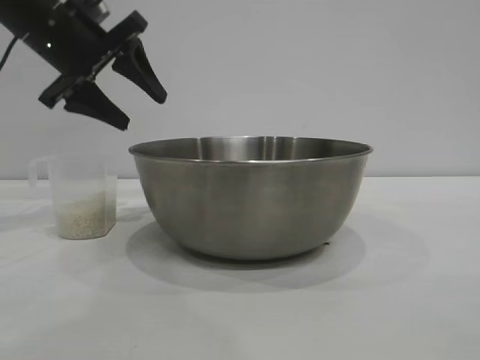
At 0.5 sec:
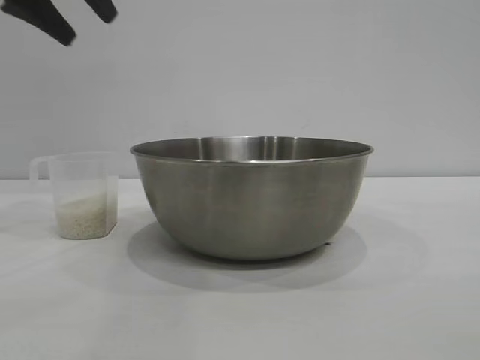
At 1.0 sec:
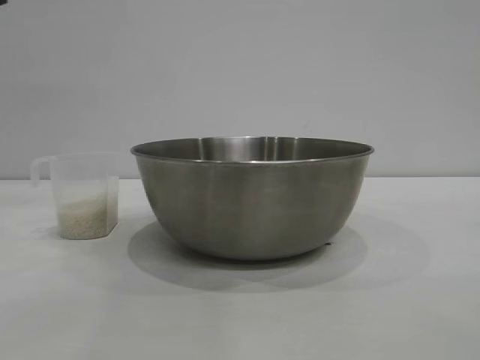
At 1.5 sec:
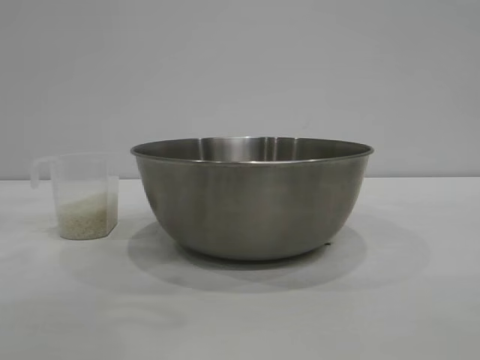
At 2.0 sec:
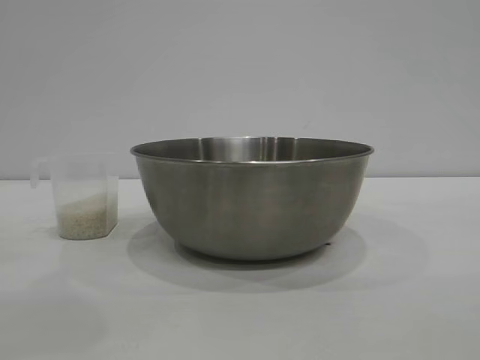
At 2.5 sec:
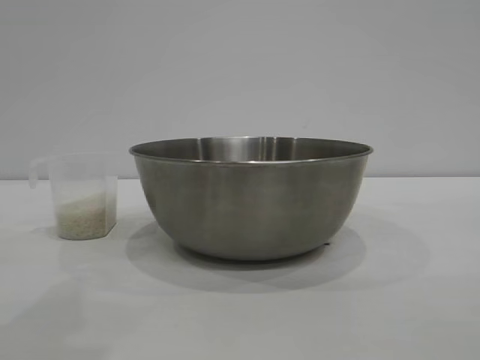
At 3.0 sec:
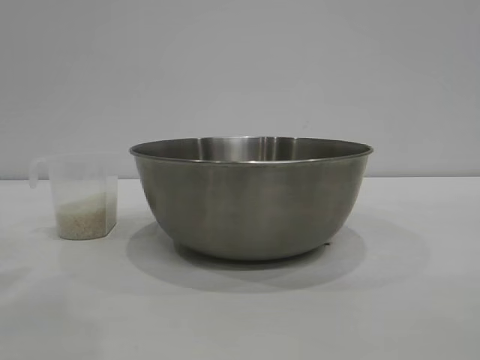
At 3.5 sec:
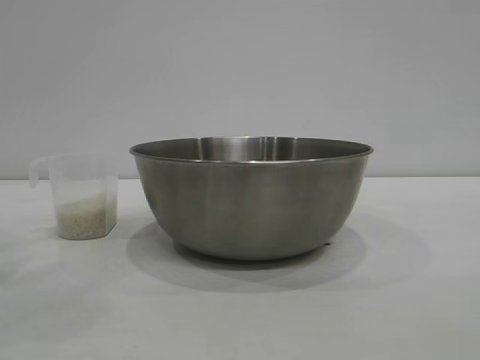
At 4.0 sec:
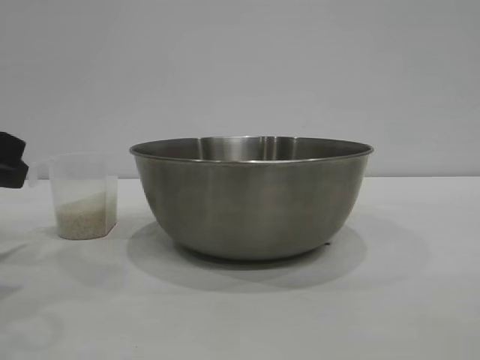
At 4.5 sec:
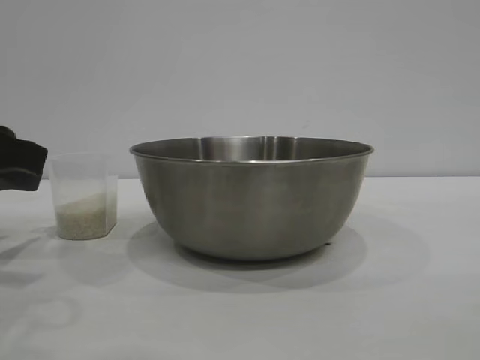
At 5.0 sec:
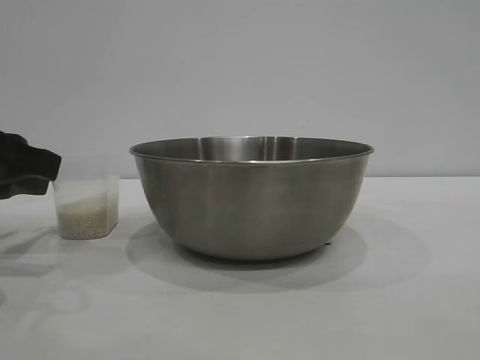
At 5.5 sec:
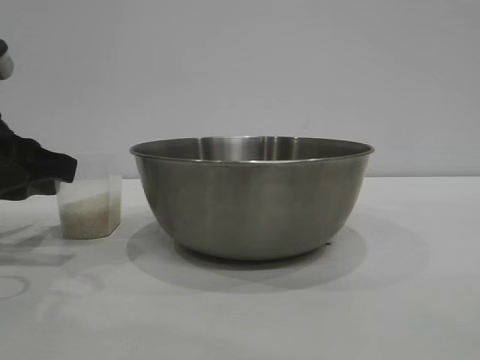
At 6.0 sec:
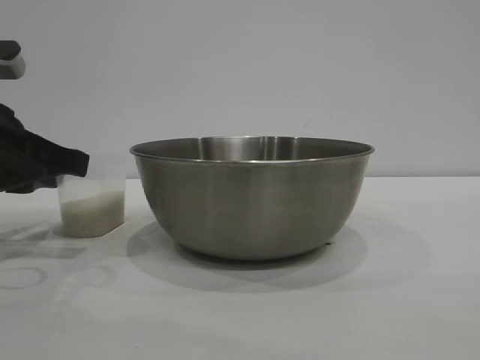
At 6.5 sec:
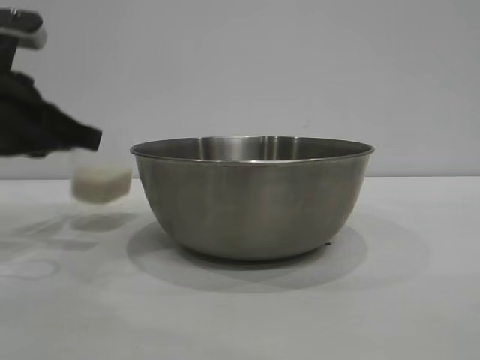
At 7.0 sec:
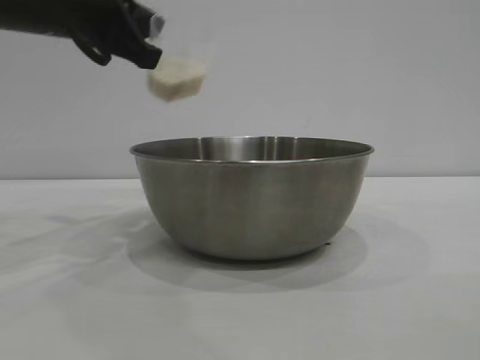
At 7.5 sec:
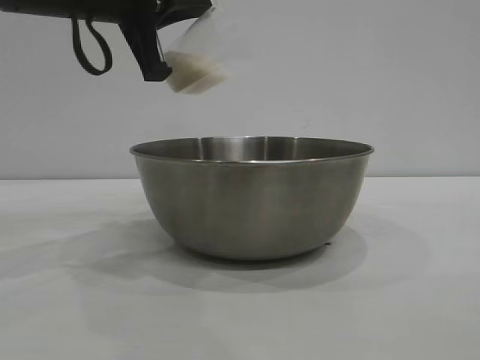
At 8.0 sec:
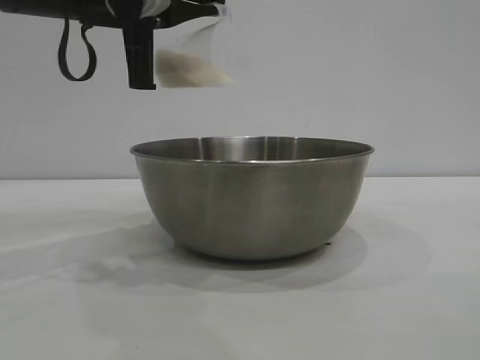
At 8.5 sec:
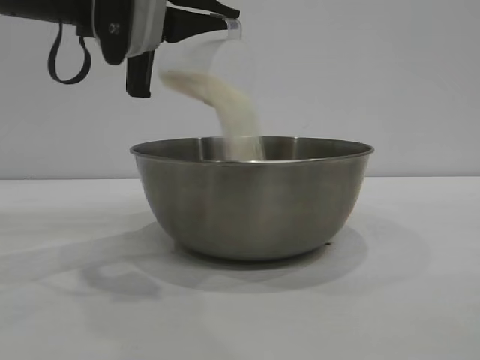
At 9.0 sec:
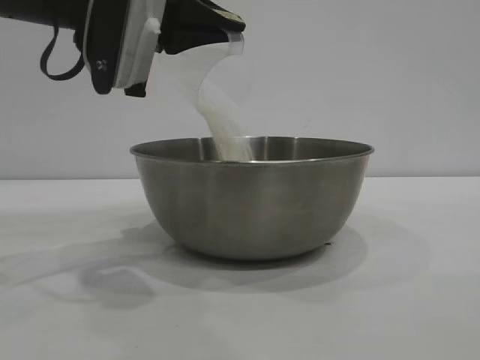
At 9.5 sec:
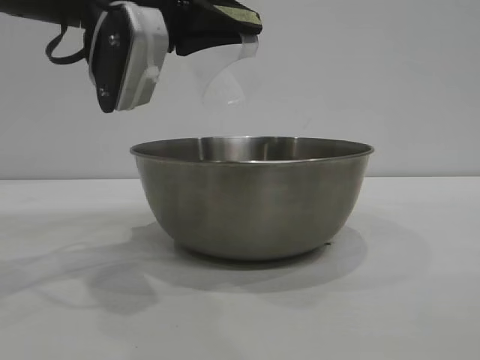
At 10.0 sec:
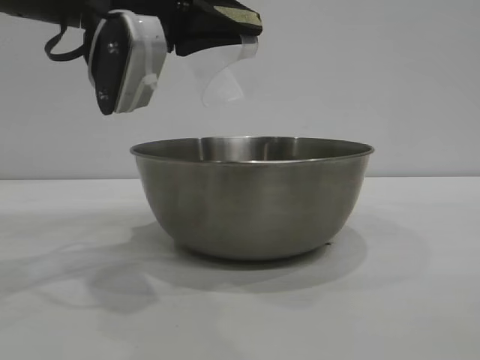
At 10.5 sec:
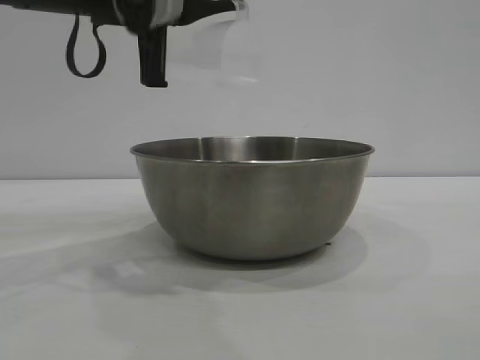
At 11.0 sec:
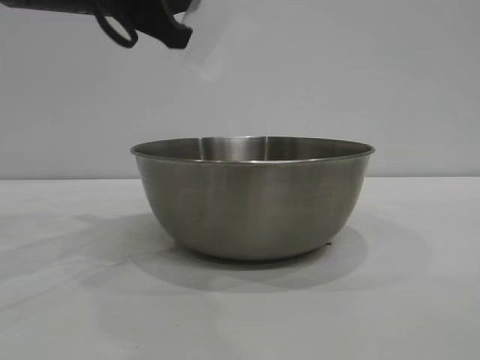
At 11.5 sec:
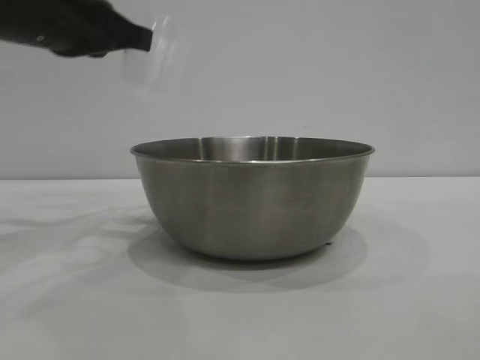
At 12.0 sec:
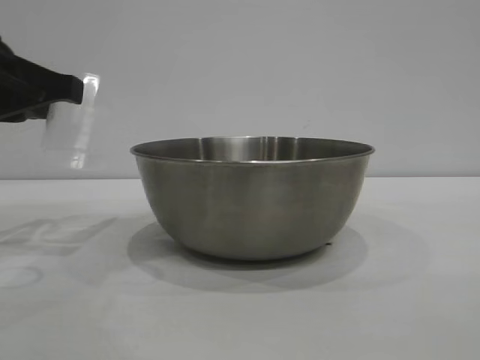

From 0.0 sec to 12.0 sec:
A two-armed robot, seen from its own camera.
Task of the whole recording: the right gripper grasp the rice container and place it in the center of the table, the left gripper grasp the rice scoop and pour the rice into the rice container.
Step, from 0.0 sec to 6.5 sec: Pick up the cup with rice in it with the left gripper.
Step, from 7.0 sec to 9.5 sec: Pour the rice from the cup into the bowl with the left gripper.
